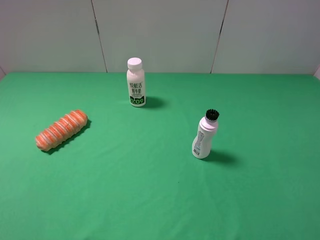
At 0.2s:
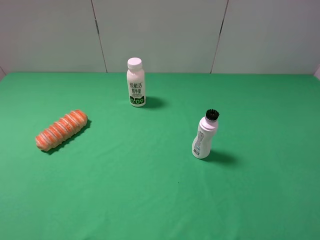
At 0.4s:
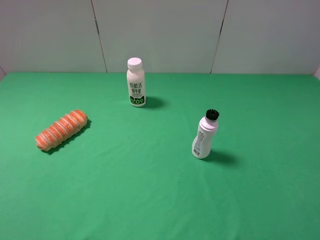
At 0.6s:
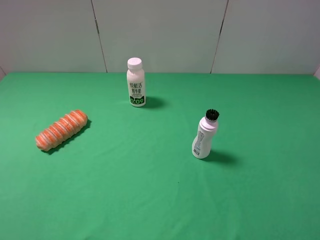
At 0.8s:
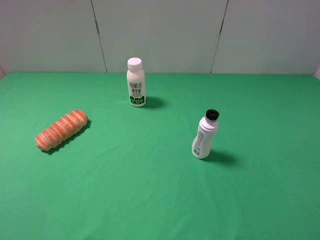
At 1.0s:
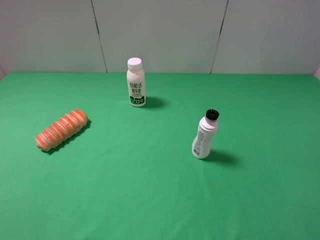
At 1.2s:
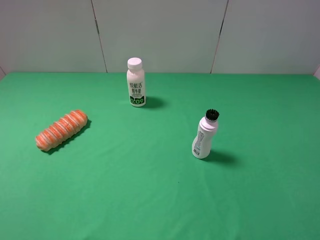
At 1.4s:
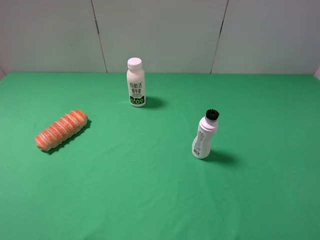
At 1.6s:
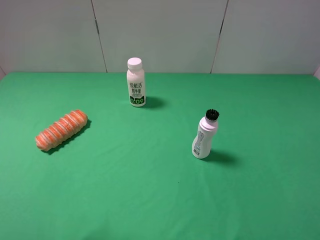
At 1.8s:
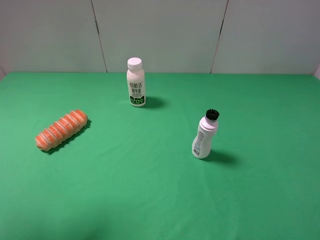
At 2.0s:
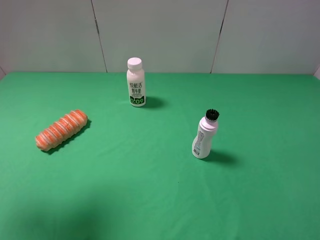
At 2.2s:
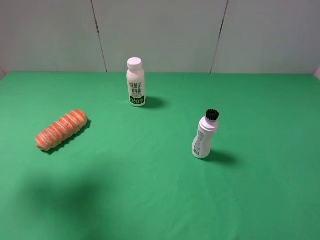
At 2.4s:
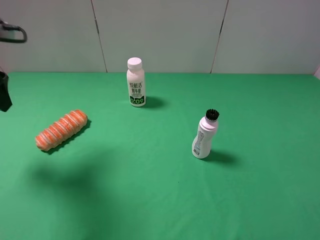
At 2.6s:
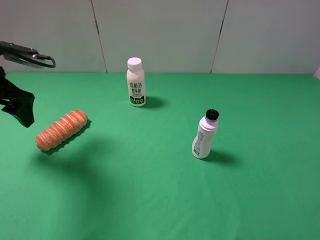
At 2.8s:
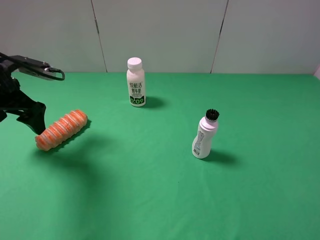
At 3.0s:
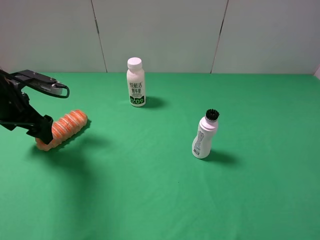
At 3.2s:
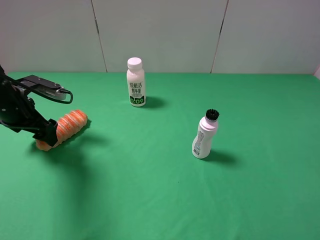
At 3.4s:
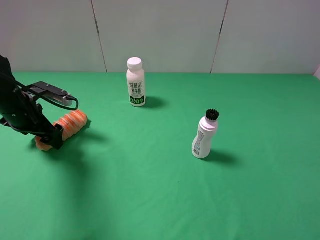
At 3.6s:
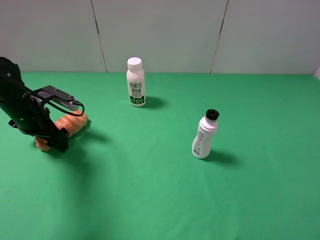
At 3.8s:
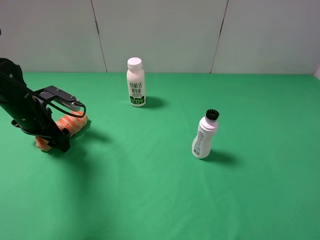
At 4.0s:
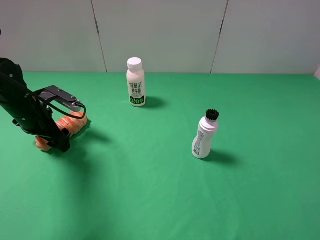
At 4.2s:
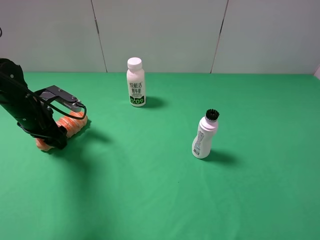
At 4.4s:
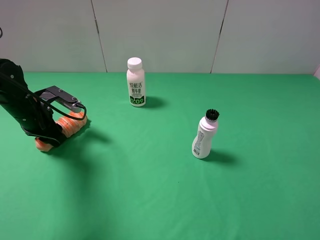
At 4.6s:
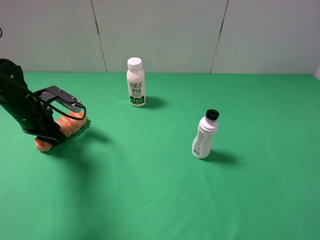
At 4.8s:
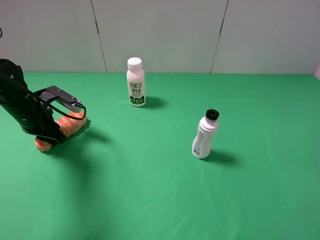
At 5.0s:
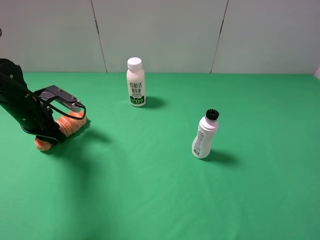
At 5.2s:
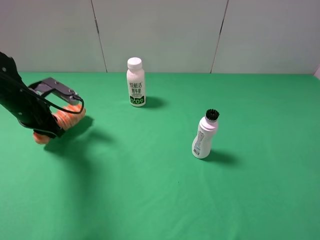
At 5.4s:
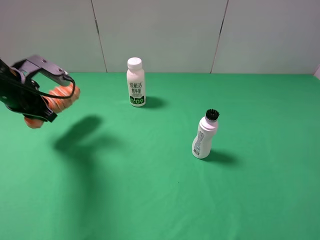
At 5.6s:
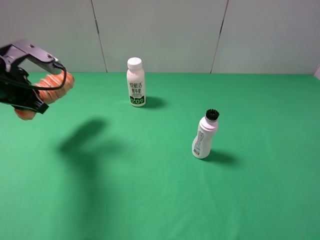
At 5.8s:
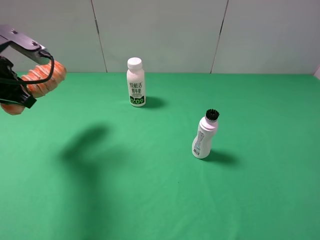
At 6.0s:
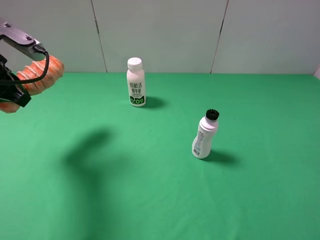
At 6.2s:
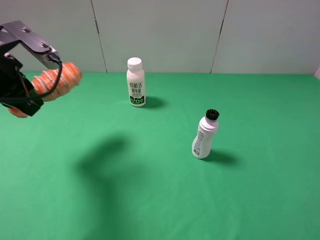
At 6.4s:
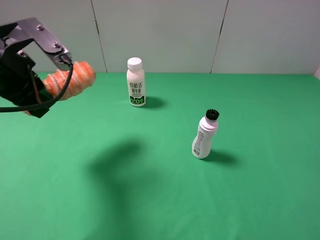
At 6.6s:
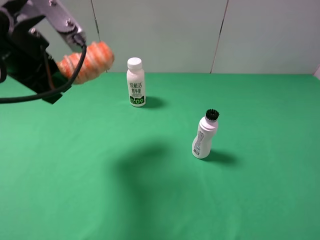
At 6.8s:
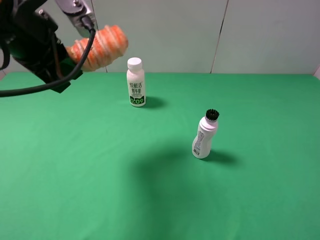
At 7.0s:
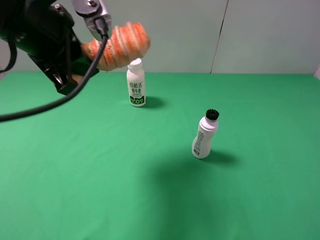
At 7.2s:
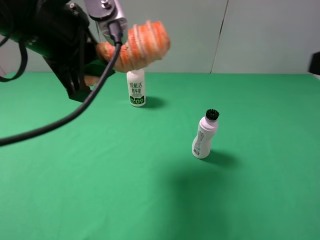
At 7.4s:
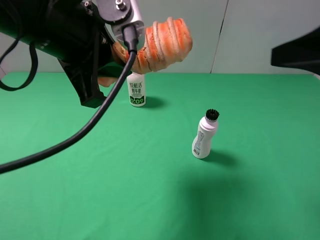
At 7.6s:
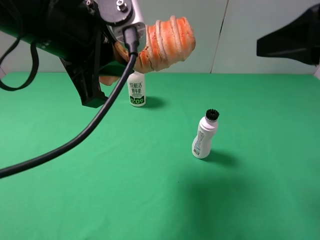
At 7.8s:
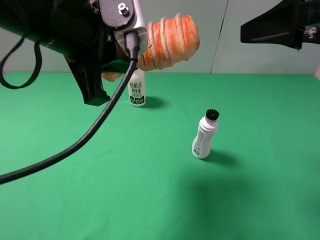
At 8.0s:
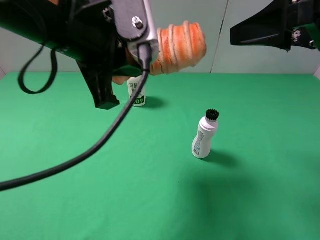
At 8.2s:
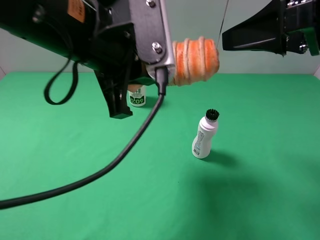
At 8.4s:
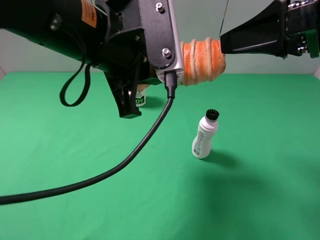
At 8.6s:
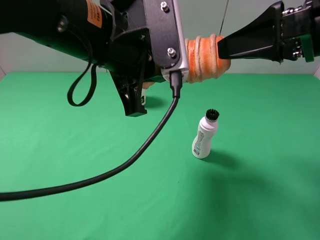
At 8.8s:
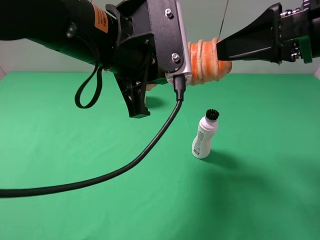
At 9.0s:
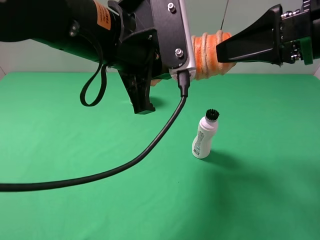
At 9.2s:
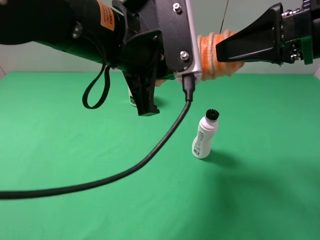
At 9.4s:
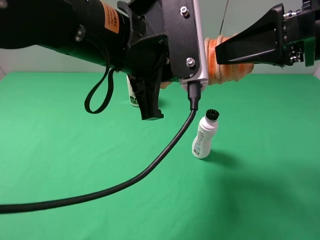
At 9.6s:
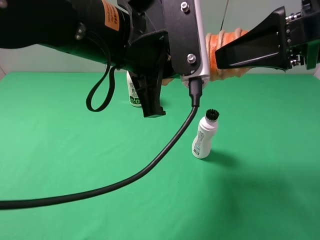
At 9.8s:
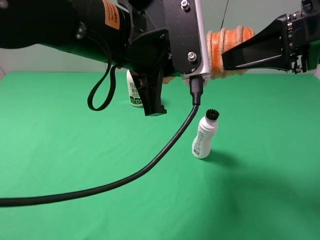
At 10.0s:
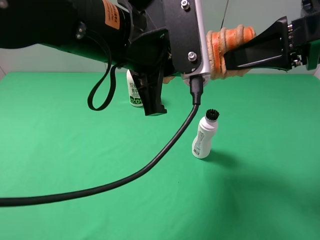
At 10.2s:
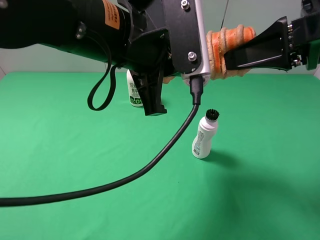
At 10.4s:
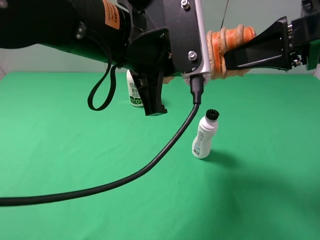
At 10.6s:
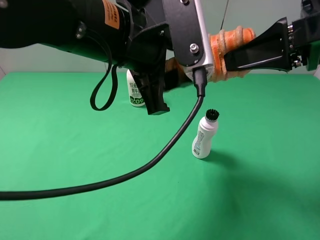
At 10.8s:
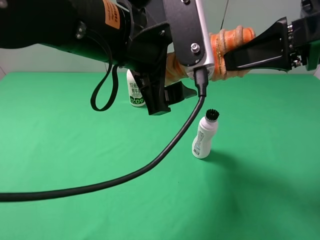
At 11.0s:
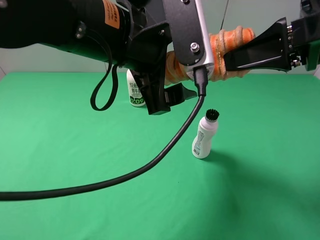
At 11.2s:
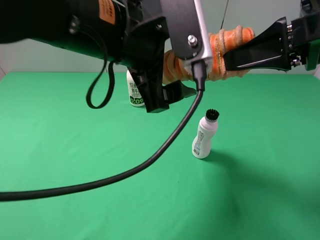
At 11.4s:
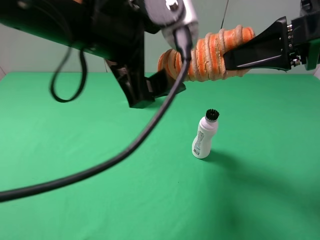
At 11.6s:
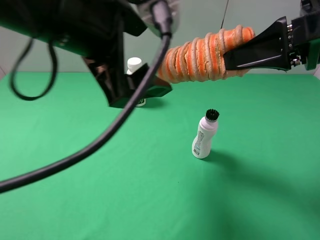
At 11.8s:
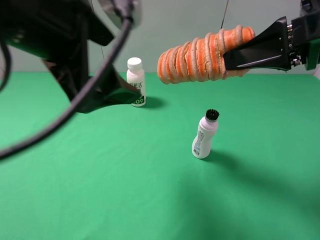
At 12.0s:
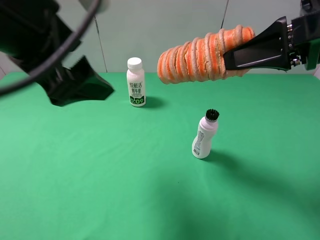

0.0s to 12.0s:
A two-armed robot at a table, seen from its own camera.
Task of the whole recording: use the left gripper to pick up the item and transfer it from the left gripper to the right gripper.
Step, 0.0s to 4.8s: Use the left gripper to grab the long bread on the left side of the table.
Step, 5.0s to 11.2s: Pass the long bread to the right gripper.
1.6s to 3.0s: The left gripper shifts about 30 cm downward and forward.
3.0s to 4.4s: The left gripper shifts about 5 cm downward, and closes up.
4.4s to 6.0s: The left gripper moves upward, roughly 15 cm.
6.0s to 7.6s: The left gripper heads to the right and upward, covering some 20 cm, while the right gripper shifts roughly 20 cm forward and upward.
7.6s to 9.0s: The left gripper moves to the right, roughly 5 cm.
9.0s to 10.4s: The right gripper closes up.
10.4s to 12.0s: The left gripper goes some 10 cm to the left, and opens.

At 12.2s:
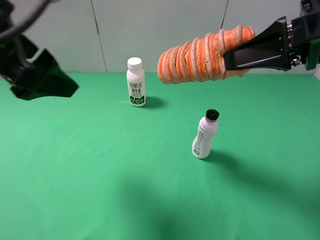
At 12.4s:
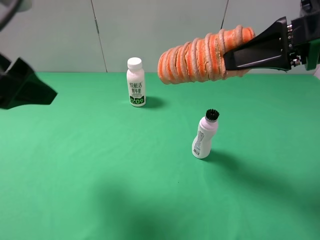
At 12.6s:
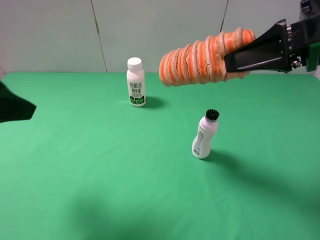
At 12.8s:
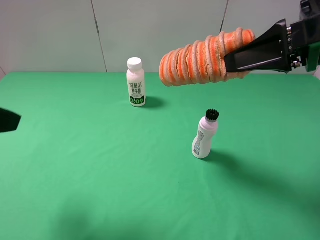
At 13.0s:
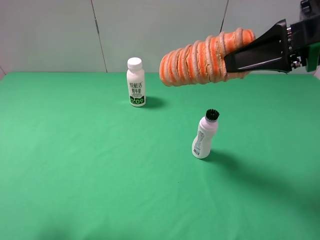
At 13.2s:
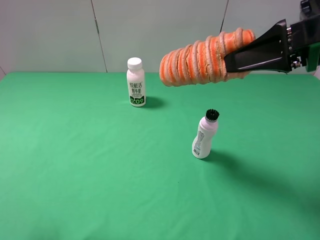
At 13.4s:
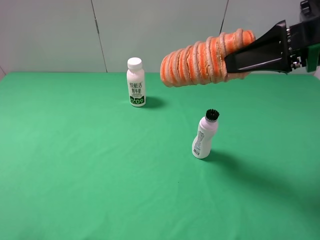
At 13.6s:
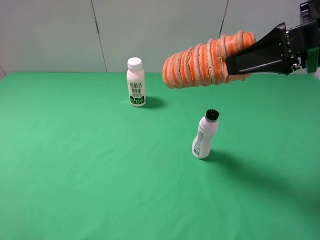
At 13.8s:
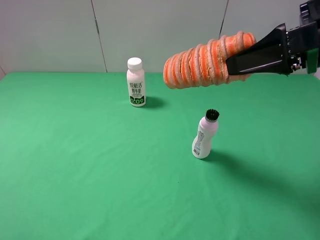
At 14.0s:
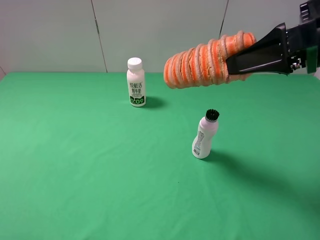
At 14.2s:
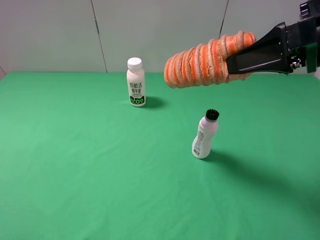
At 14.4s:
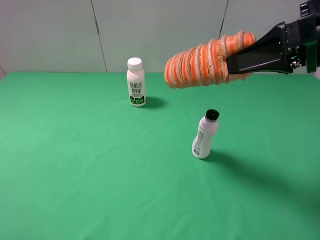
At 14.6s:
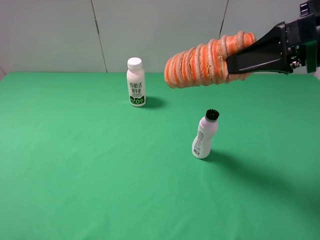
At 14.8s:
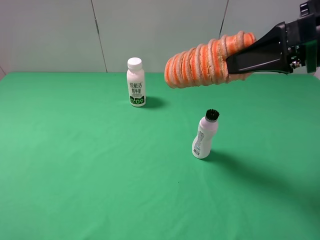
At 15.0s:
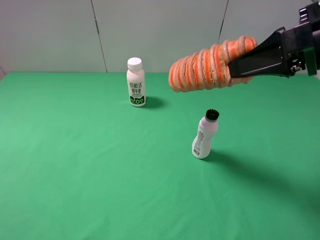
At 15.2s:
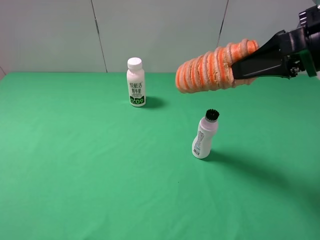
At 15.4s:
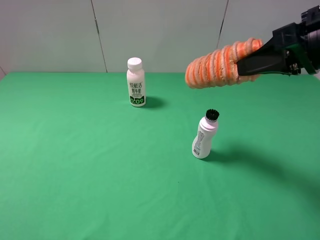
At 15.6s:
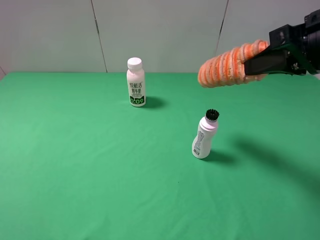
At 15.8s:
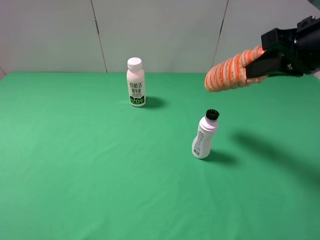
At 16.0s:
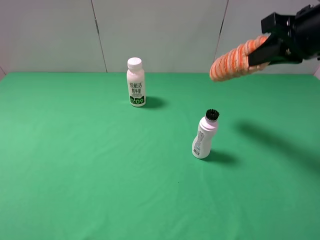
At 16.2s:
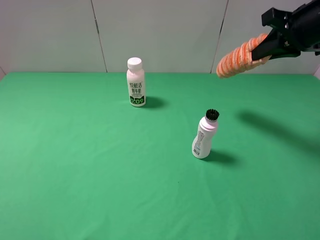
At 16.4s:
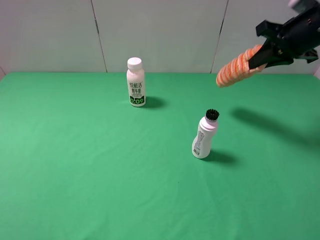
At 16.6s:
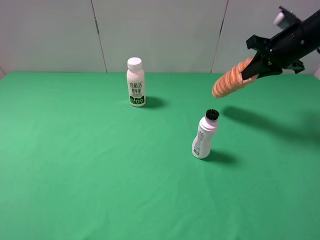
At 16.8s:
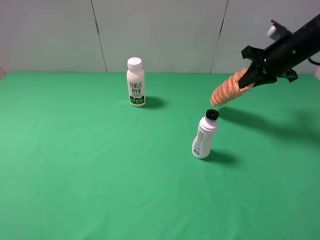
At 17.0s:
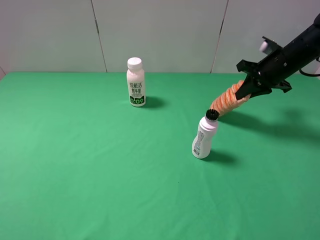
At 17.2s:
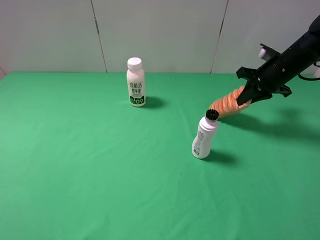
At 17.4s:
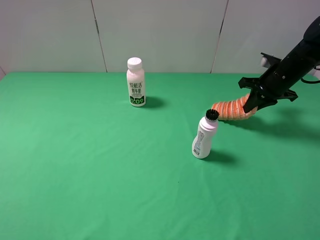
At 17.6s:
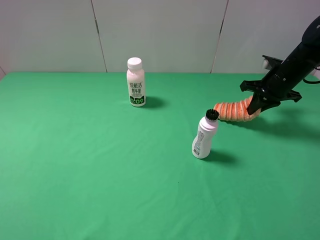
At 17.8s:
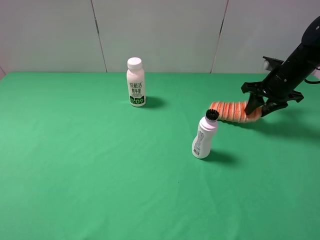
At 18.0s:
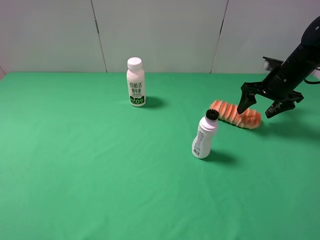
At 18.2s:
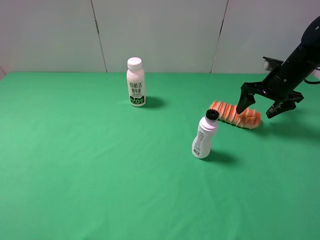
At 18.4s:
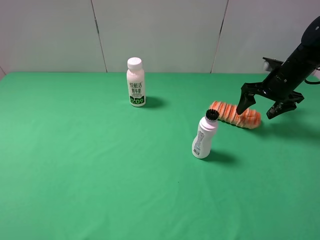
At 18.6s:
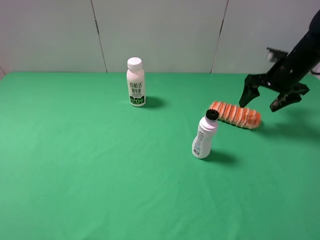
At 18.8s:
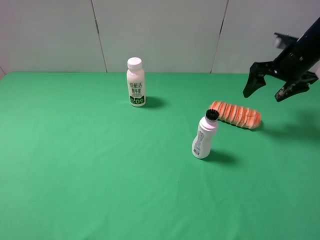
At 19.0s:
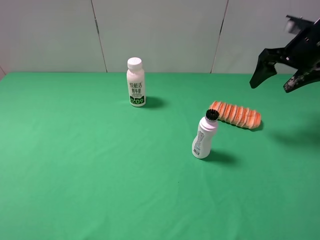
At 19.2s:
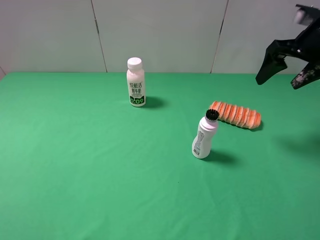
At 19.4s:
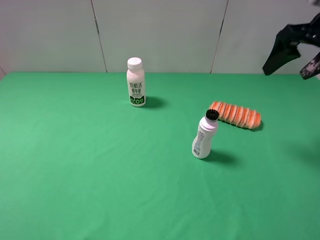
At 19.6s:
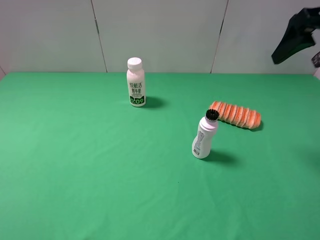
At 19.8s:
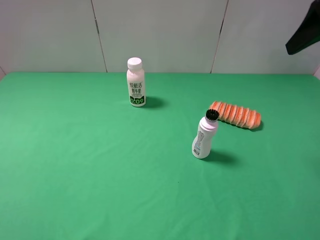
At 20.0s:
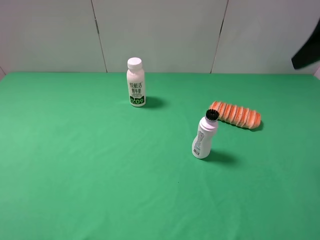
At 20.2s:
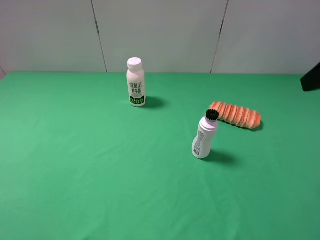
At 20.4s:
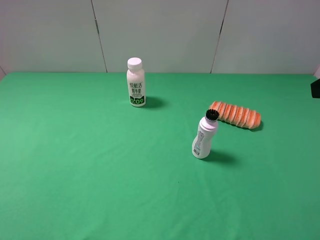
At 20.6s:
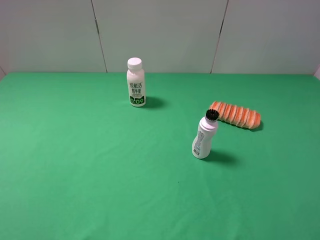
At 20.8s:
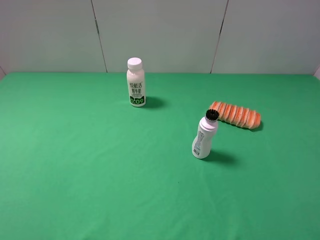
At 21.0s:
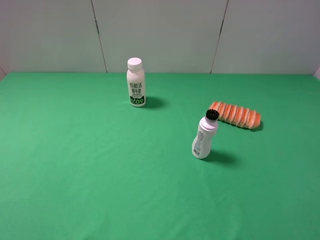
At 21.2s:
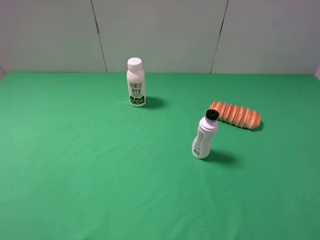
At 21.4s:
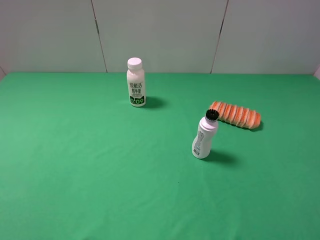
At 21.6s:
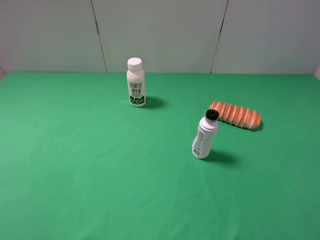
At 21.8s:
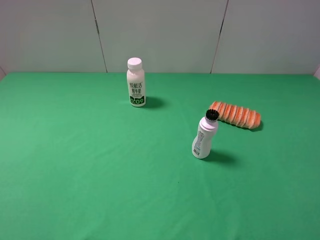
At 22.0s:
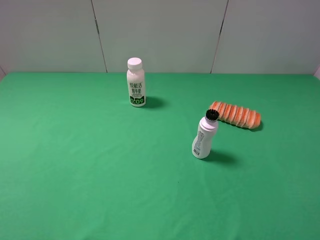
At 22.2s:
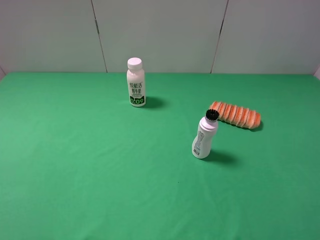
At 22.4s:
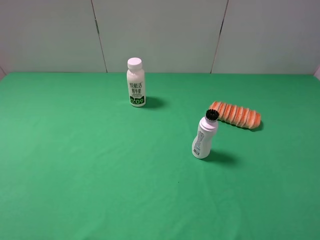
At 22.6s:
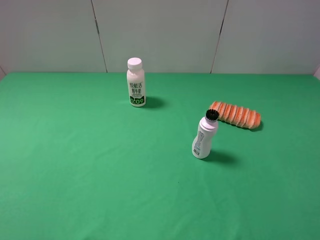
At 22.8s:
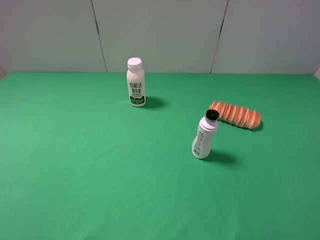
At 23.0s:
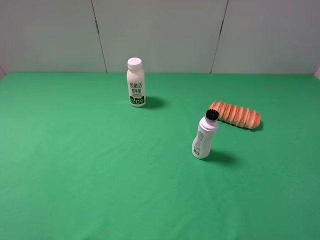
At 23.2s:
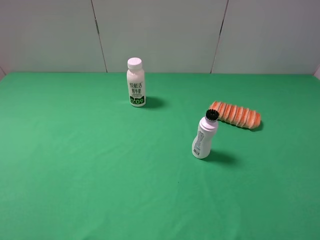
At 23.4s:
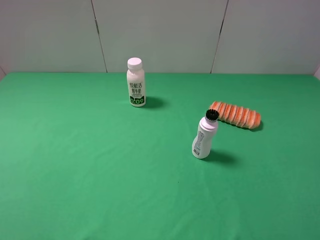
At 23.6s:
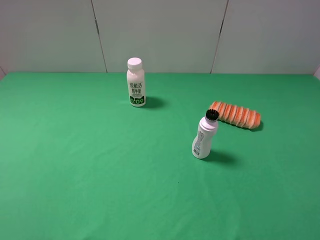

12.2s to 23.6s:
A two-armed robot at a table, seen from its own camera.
Task of the whole recording: use the left gripper to pick up the item and transfer it from the left gripper to the right gripper.
Step, 12.2s to 18.6s: The right gripper places long bread on the right side of the table.
12.2s to 13.6s: The left gripper shifts approximately 20 cm backward, to the left and downward.
13.6s to 15.0s: The grippers move only a little.
15.0s to 16.4s: The right gripper goes some 15 cm forward and to the right.
16.4s to 17.8s: The right gripper travels downward by roughly 10 cm, and opens up.
17.8s to 19.4s: The right gripper is displaced upward and backward by approximately 20 cm, and opens up.
19.4s to 20.8s: The right gripper shifts approximately 25 cm backward.
22.2s to 23.6s: Neither gripper changes place.
